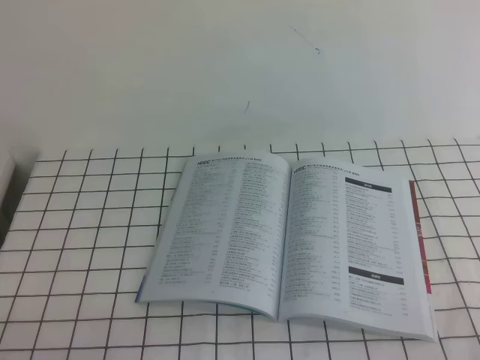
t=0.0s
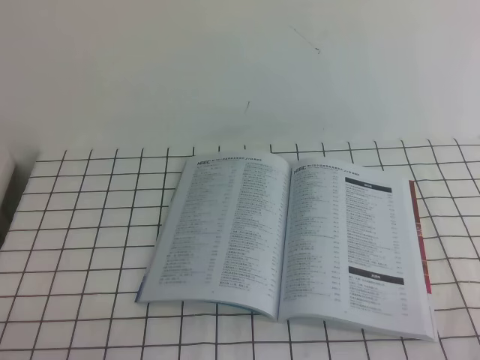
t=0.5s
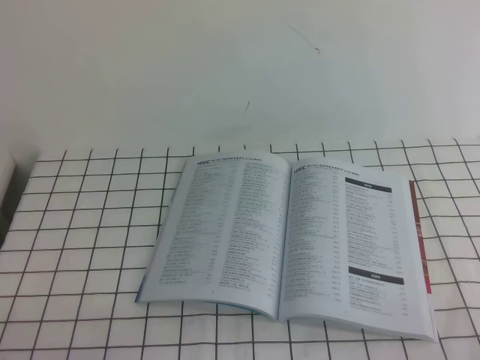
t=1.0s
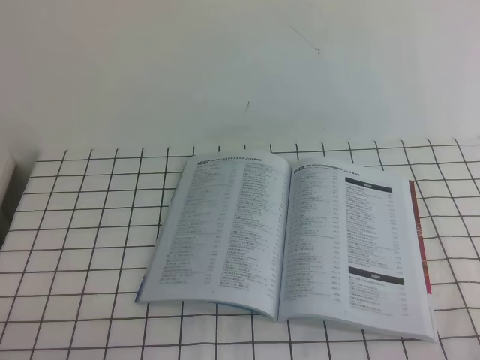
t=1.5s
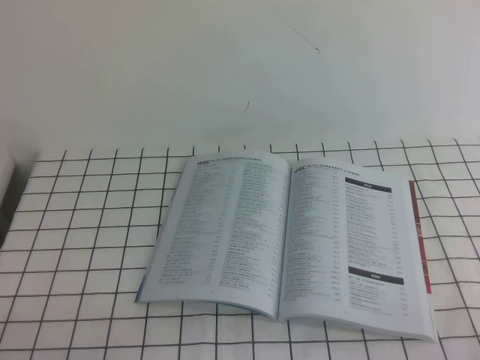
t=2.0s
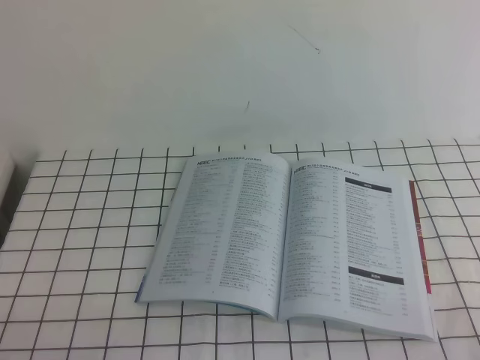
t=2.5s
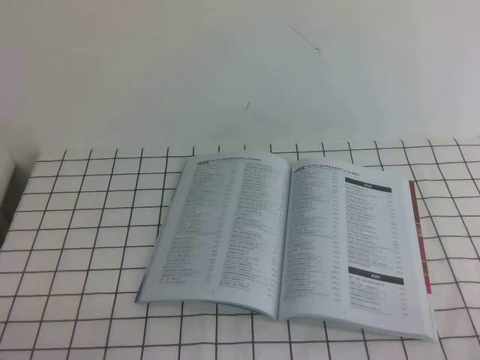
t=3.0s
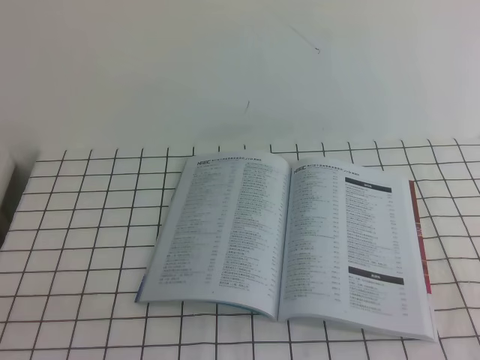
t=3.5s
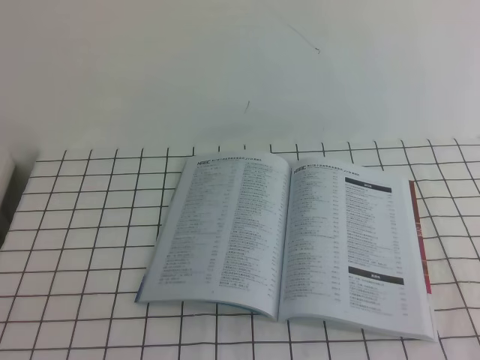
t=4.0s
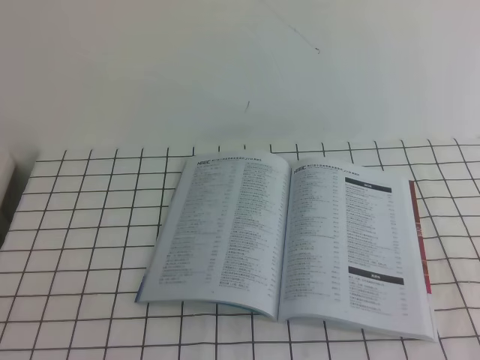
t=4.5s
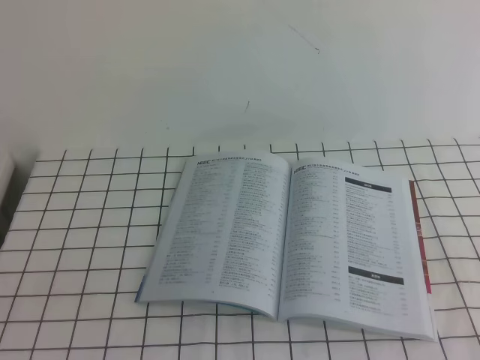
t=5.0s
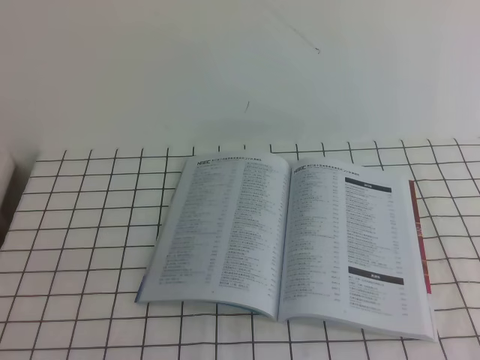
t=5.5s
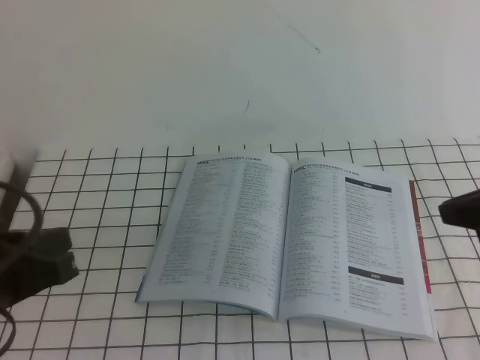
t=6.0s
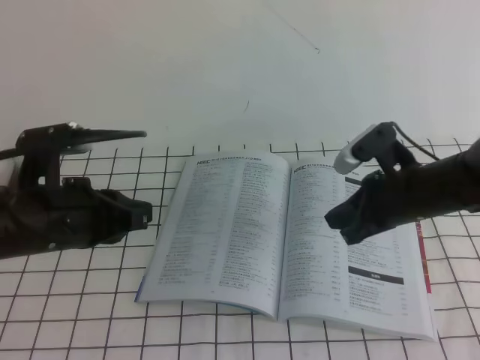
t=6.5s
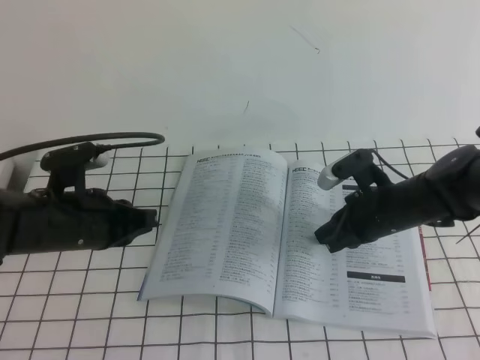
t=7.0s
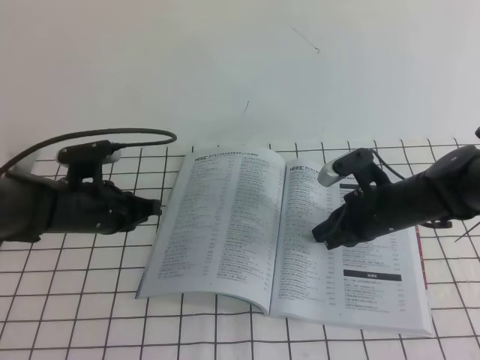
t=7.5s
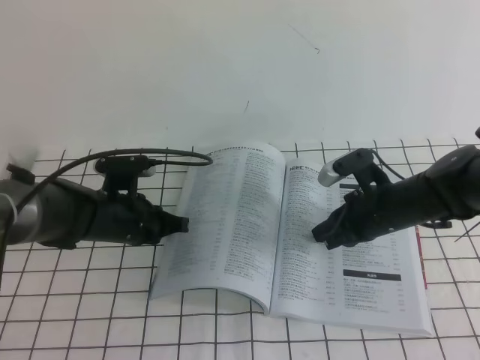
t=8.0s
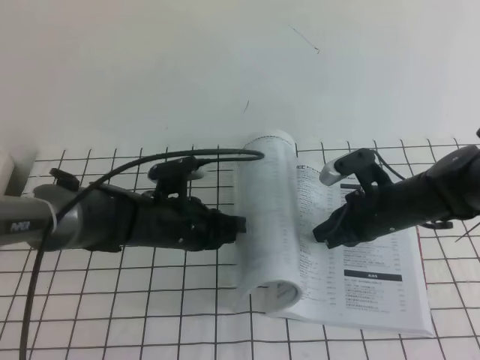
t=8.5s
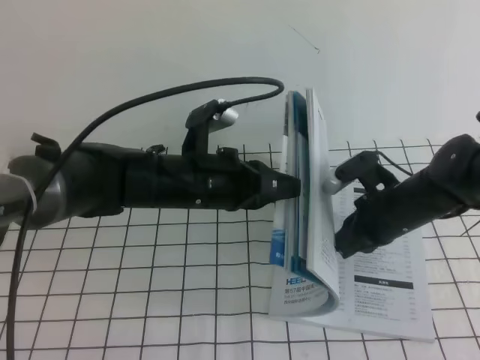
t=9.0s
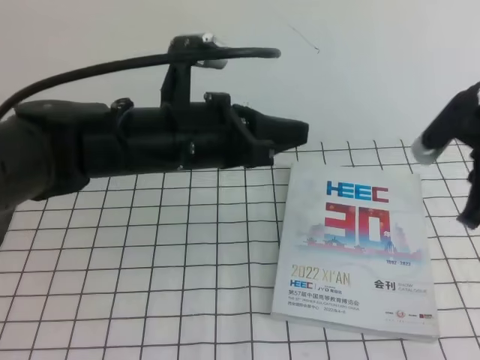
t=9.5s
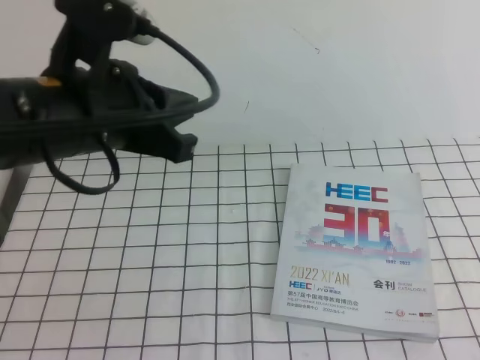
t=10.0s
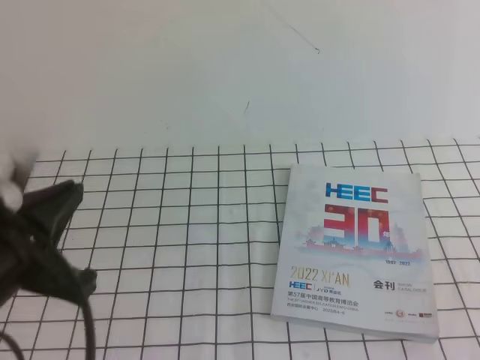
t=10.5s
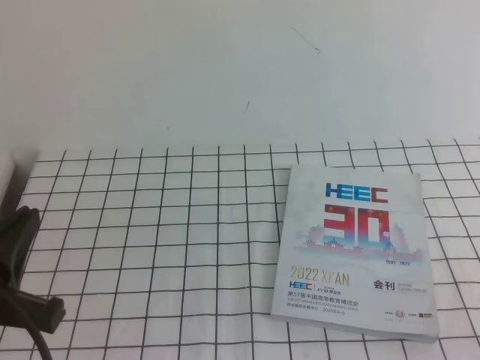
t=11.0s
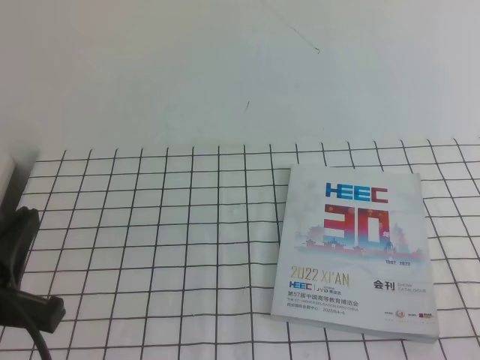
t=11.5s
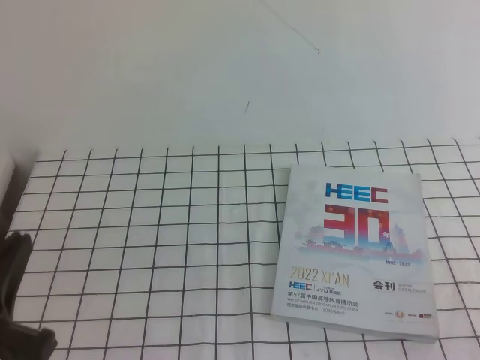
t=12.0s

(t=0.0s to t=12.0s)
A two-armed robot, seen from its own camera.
Task of the whole recording: on the white tablecloth, hold the book with one hand and close it with the other.
t=0.0s - t=2.0s: Both grippers stay about where they are.
t=4.0s - t=6.0s: The two grippers go about 20 cm forward.
t=6.0s - t=8.0s: The right gripper goes approximately 25 cm downward, forward and to the left. The left gripper heads forward and downward, covering approximately 25 cm.
t=8.0s - t=10.0s: The two grippers go about 30 cm upward and backward.
t=10.0s - t=12.0s: The right gripper goes some 20 cm backward and downward; the left gripper shifts approximately 20 cm backward, downward and to the left.
